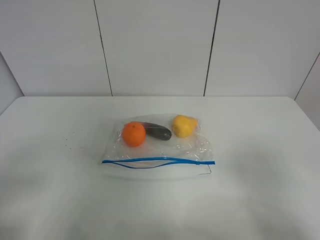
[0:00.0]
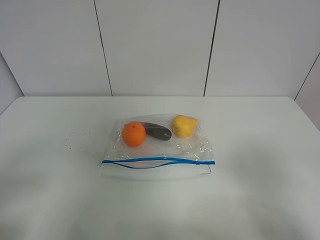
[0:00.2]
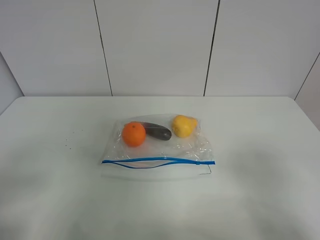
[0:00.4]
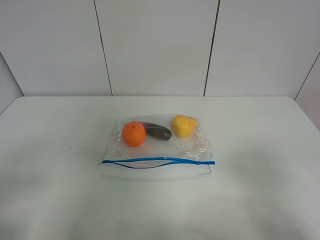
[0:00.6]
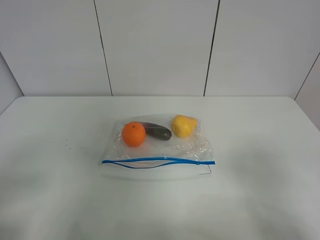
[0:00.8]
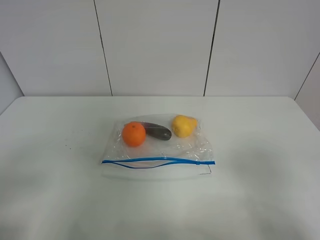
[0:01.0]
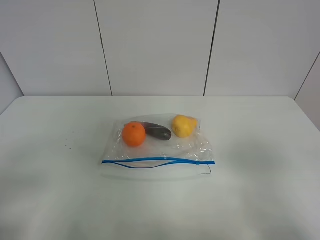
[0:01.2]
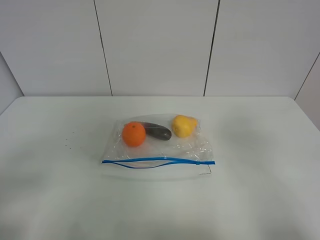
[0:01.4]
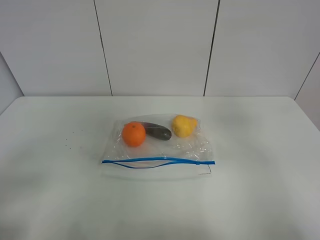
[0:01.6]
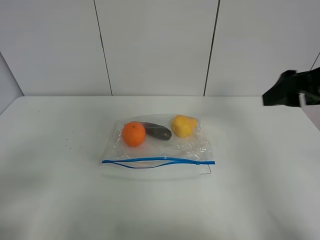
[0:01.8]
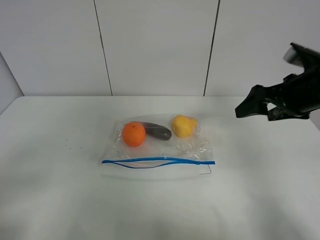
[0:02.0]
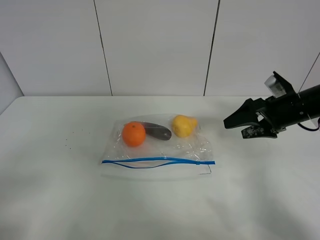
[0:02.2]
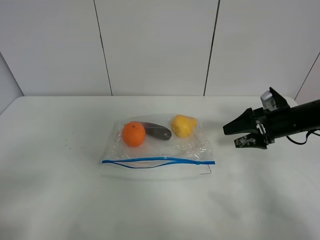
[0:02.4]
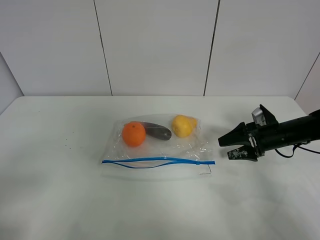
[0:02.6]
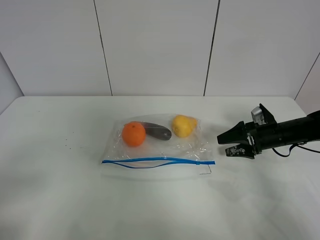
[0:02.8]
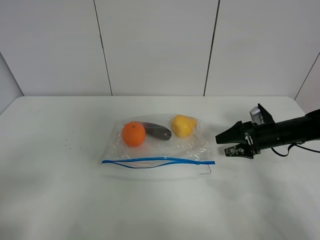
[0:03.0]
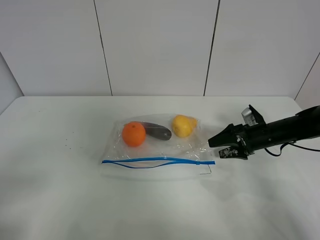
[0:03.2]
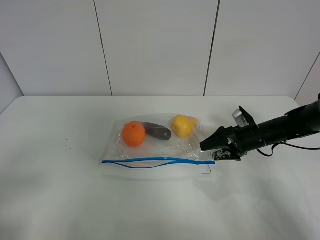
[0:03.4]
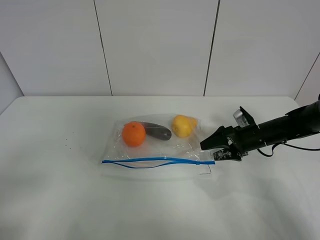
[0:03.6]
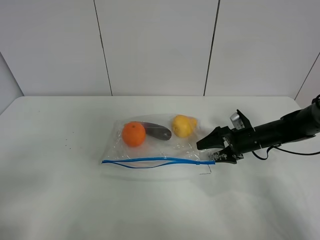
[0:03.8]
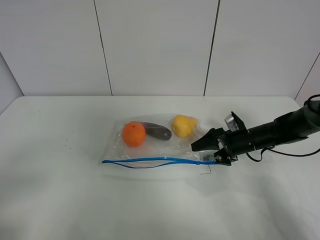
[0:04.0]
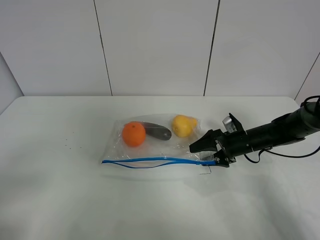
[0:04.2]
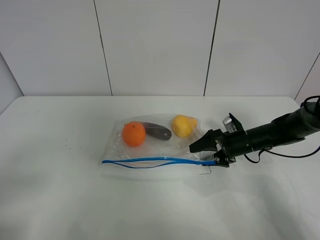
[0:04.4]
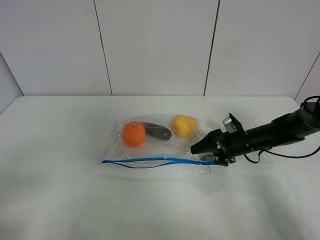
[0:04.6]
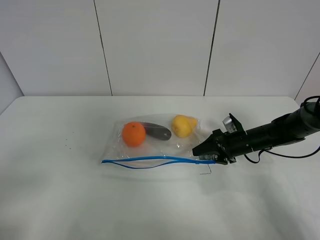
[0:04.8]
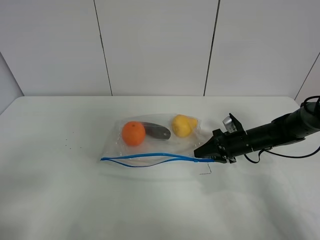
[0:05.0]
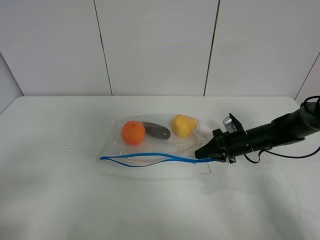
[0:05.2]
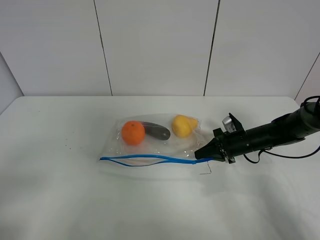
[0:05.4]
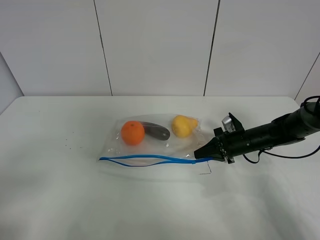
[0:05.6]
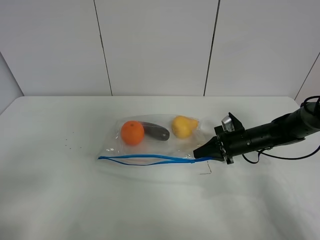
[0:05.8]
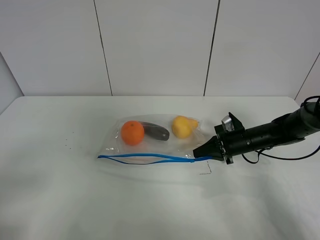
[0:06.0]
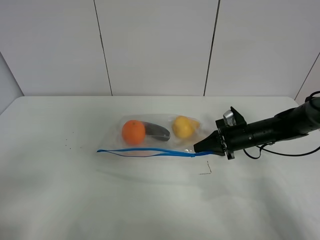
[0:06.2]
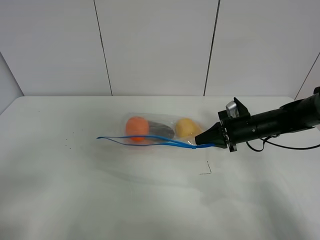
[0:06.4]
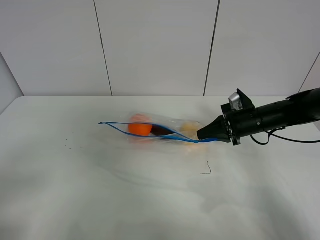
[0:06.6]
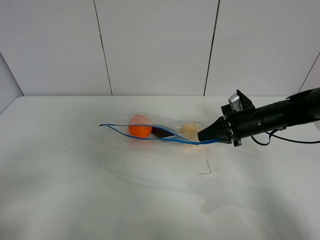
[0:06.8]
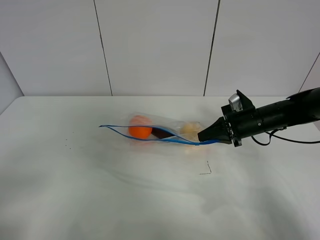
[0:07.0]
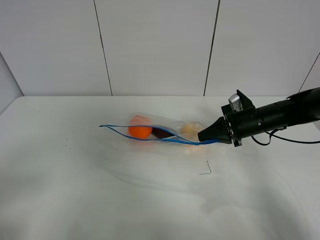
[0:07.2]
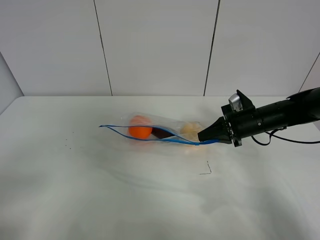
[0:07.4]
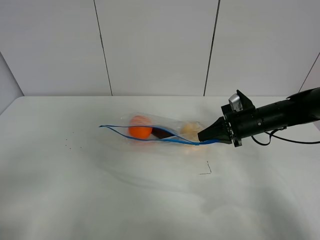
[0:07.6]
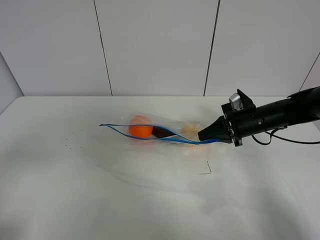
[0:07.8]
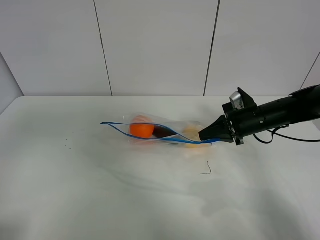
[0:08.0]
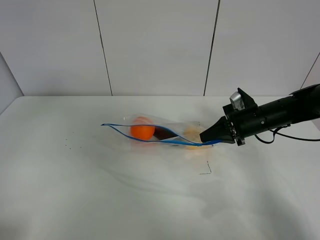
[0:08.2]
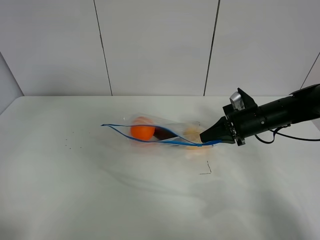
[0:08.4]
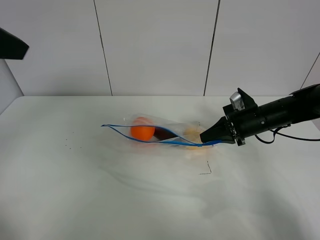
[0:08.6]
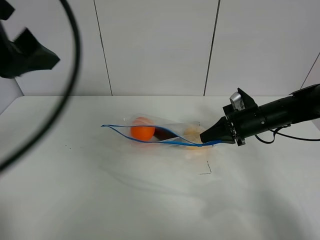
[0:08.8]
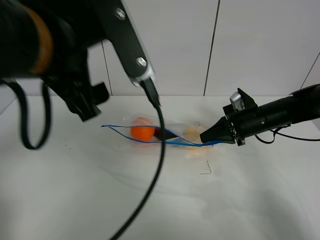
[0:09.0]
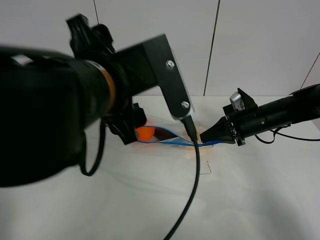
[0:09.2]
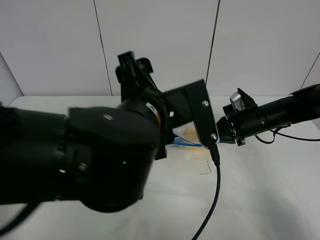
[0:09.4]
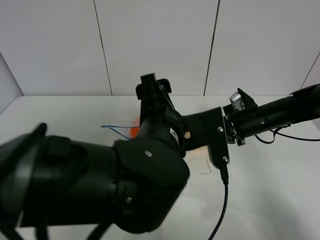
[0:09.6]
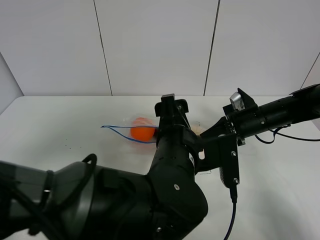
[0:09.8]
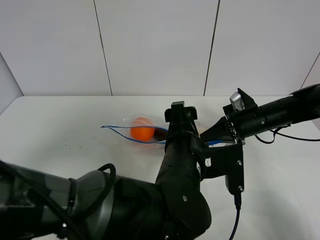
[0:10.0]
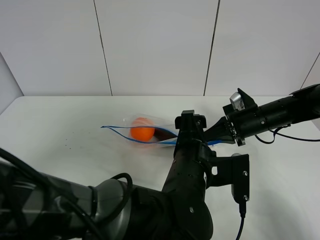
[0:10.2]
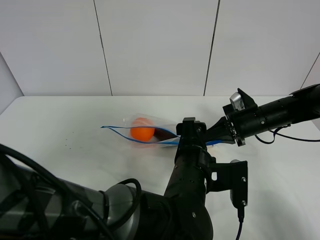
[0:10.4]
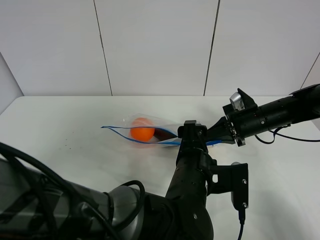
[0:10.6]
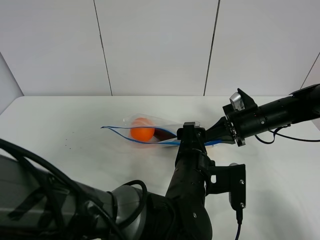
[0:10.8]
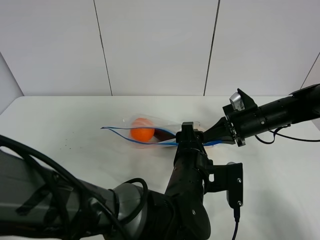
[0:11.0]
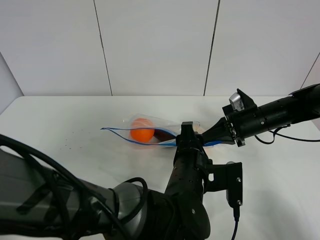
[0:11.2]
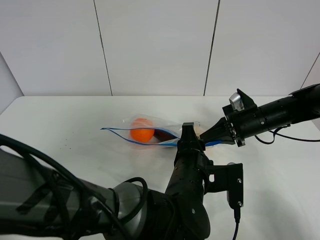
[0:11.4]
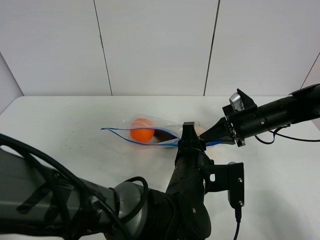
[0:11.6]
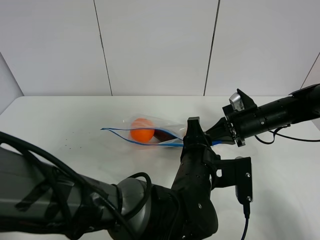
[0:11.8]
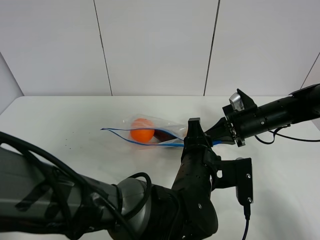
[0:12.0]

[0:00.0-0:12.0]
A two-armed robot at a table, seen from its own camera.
Step, 0:00.0 to 0:05.2: Grasp the fruit bag with right gripper.
Step, 0:05.4 to 0:08.4: Lift the fruit bag with your right gripper.
0:00.0 to 0:01.6: The right gripper shifts approximately 15 cm forward and upward.
0:01.6 to 0:03.0: The right gripper heads downward and forward, covering about 35 cm.
0:03.0 to 0:04.4: The right gripper goes roughly 5 cm to the left.
0:04.4 to 0:06.0: The right gripper closes its fingers.
0:06.0 to 0:07.6: The right gripper travels upward by about 5 cm.
0:07.6 to 0:09.0: The left gripper travels to the right, forward and upward by about 30 cm.
0:09.0 to 0:10.4: The left gripper travels downward and to the right by approximately 30 cm.
0:10.4 to 0:12.0: The left gripper closes.

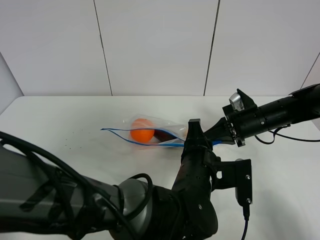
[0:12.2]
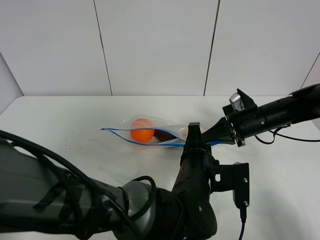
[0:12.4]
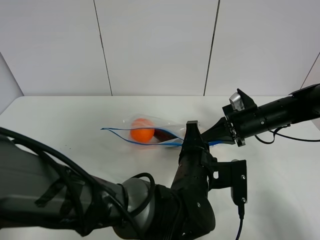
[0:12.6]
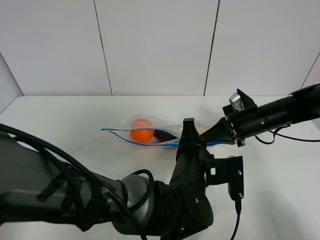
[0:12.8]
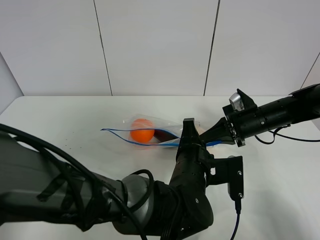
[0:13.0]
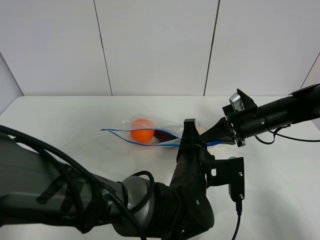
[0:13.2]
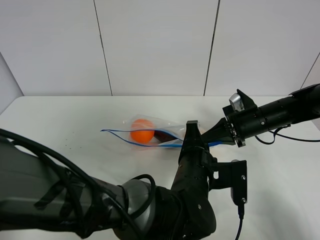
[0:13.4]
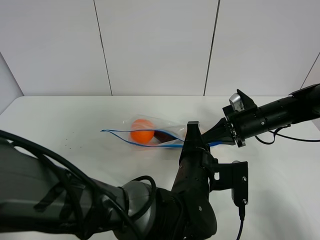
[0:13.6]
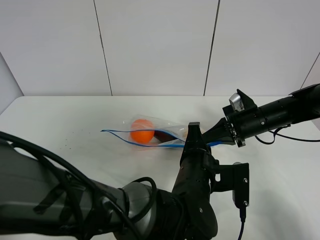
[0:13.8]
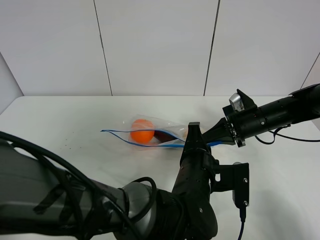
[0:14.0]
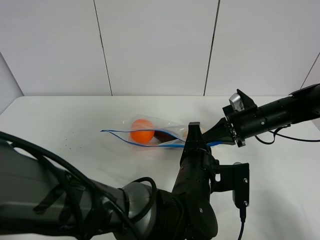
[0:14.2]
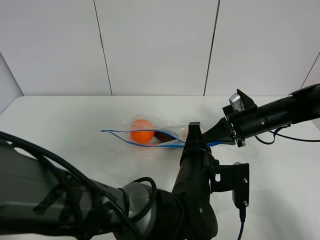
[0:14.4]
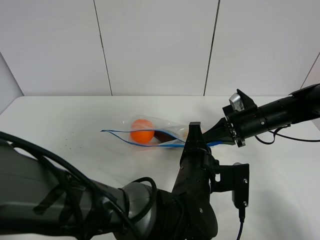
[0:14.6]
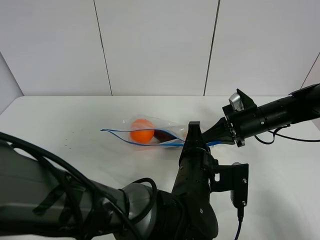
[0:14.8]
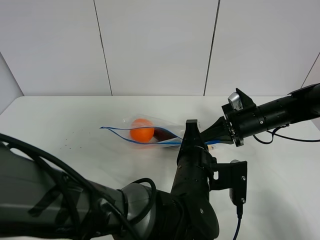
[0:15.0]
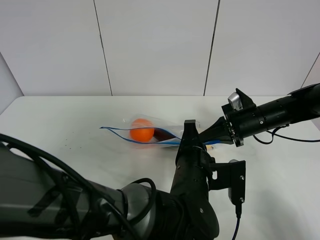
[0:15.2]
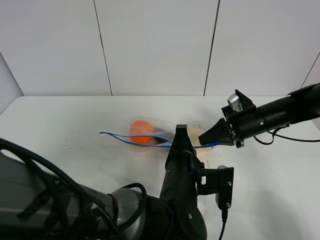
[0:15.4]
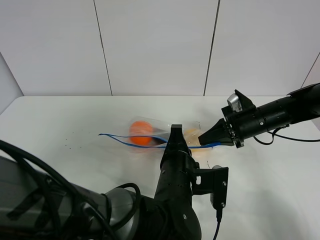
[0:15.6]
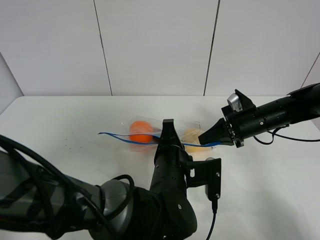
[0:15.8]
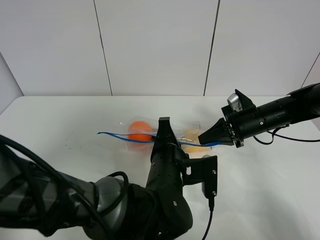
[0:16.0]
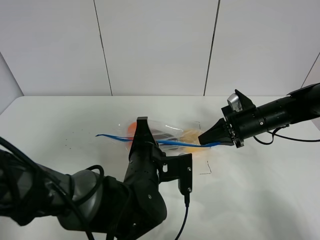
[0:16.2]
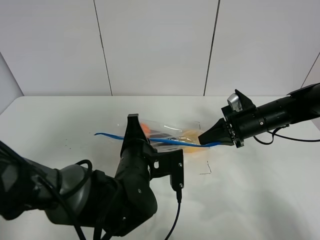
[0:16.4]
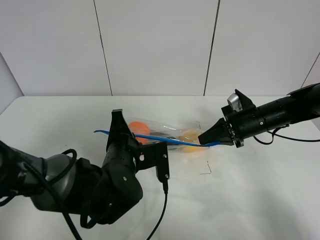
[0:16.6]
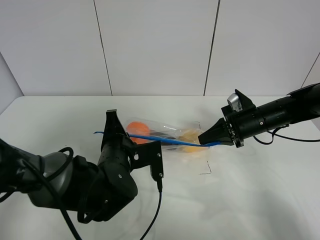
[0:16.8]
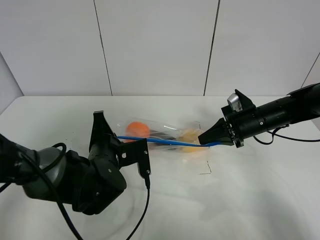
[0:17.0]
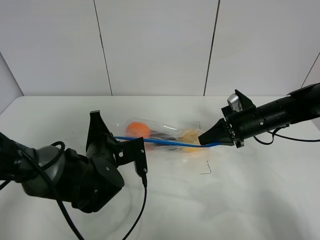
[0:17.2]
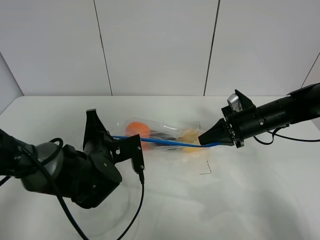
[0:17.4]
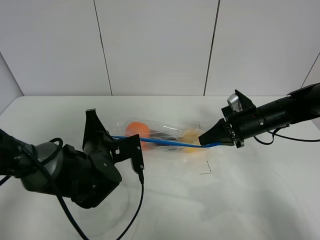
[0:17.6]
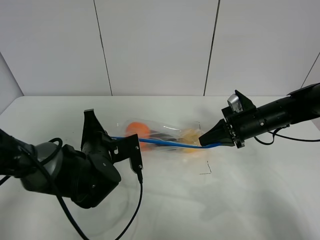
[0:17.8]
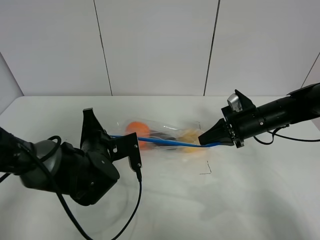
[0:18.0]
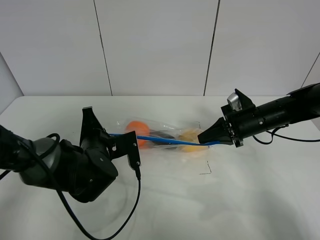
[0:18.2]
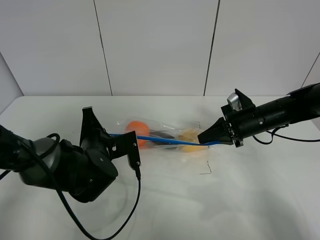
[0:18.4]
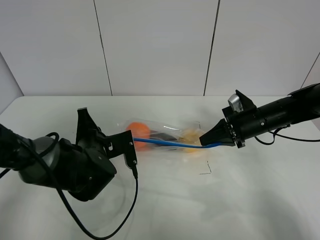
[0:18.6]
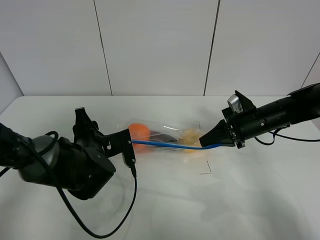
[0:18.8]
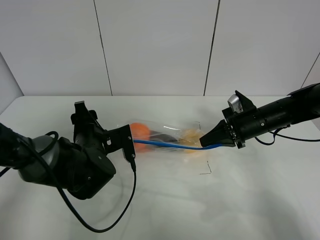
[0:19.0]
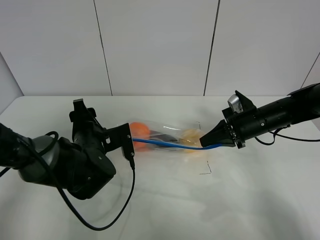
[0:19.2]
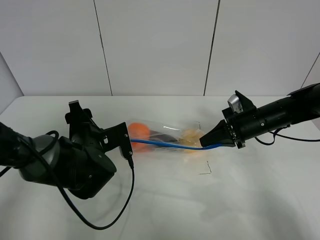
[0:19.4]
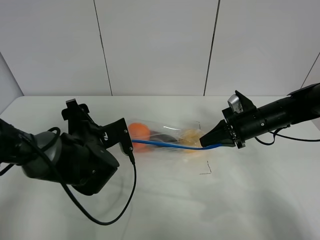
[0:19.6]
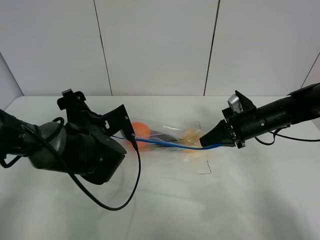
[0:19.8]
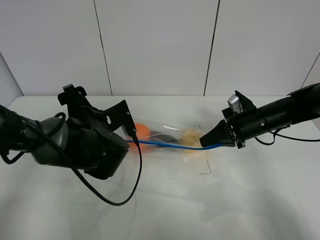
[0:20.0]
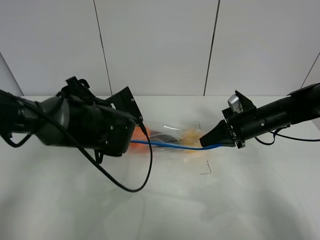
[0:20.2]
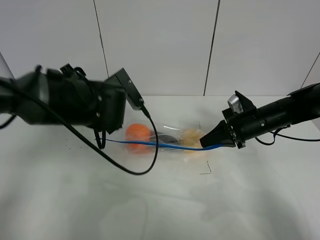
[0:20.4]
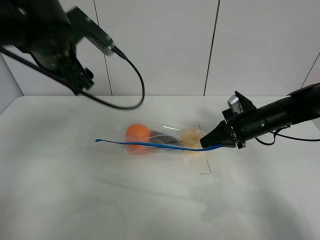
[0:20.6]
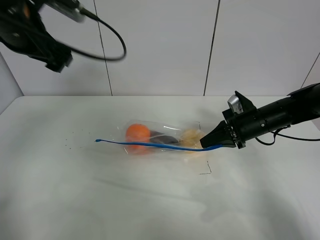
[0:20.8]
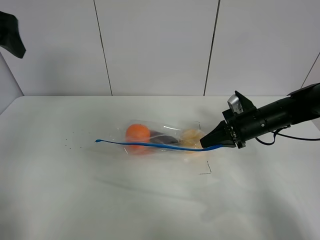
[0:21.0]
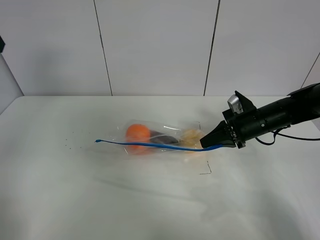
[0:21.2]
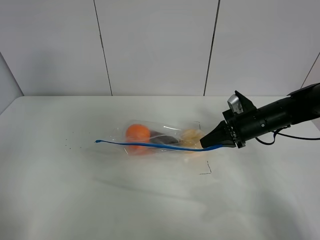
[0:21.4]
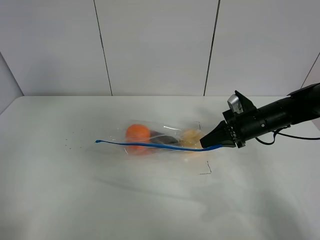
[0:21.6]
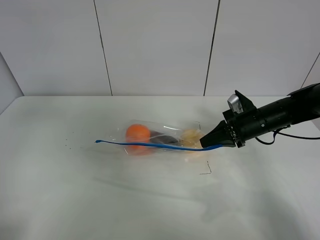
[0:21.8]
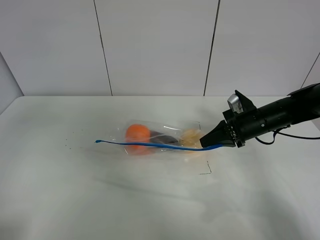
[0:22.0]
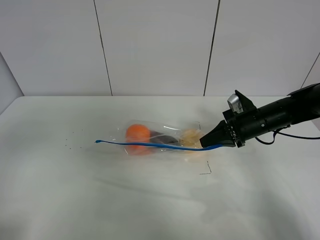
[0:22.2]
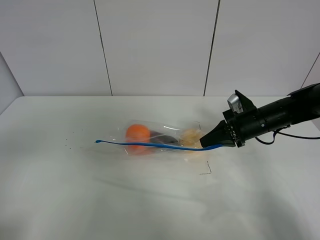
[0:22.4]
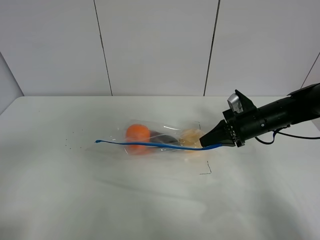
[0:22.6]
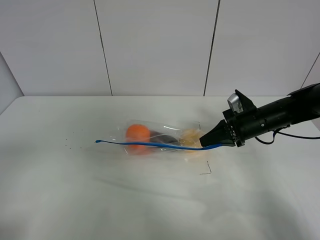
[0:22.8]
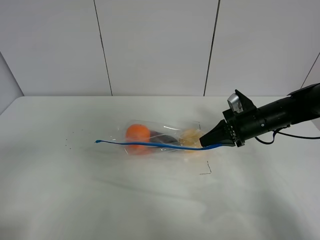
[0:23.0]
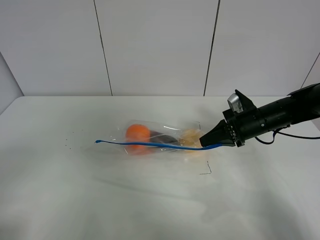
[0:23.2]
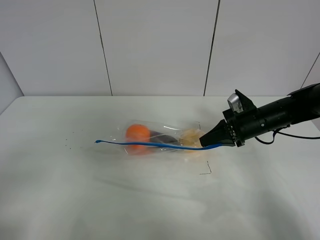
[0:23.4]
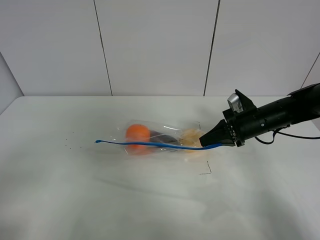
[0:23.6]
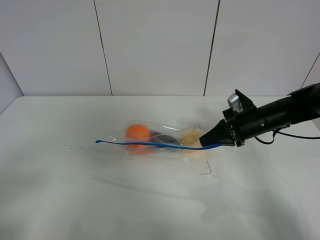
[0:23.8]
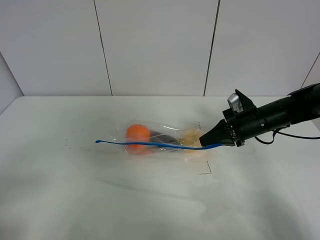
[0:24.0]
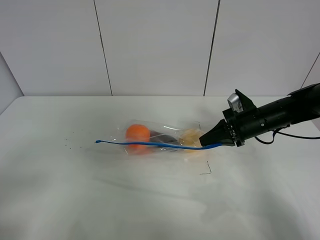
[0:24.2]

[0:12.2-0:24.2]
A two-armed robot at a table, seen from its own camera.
Step, 0:12.2 to 0:19.2: Pull the fruit bag with left gripper.
0:12.2 to 0:13.8: The grippers move only a little.
0:13.8 to 0:15.2: Both grippers stay put.
0:15.2 to 0:16.6: The left gripper is displaced to the left by roughly 10 cm.
0:16.6 to 0:18.2: The left gripper is displaced to the left by approximately 5 cm.
0:18.2 to 0:19.8: The left gripper opens.
0:19.8 to 0:21.2: The left gripper goes some 35 cm upward and to the left.
0:21.2 to 0:22.6: The left gripper goes roughly 30 cm backward.
